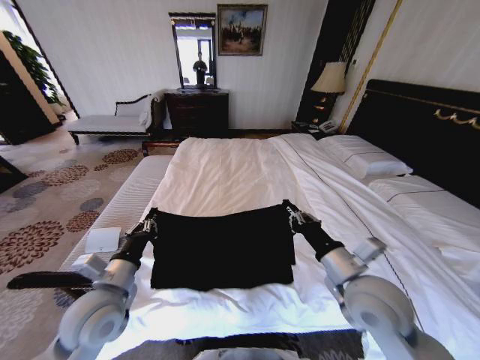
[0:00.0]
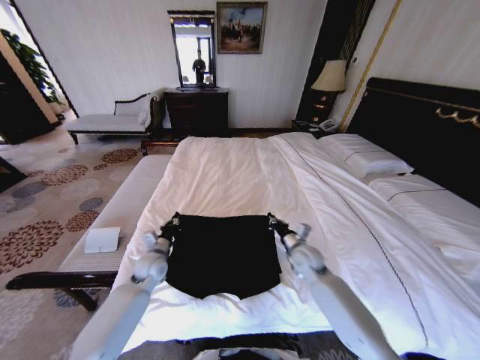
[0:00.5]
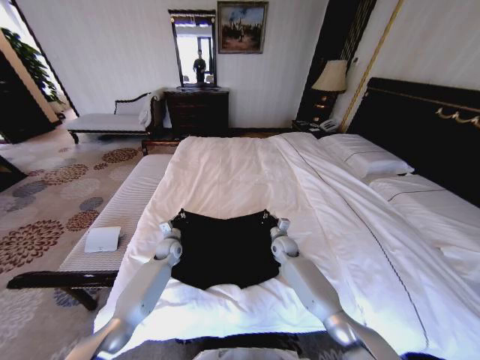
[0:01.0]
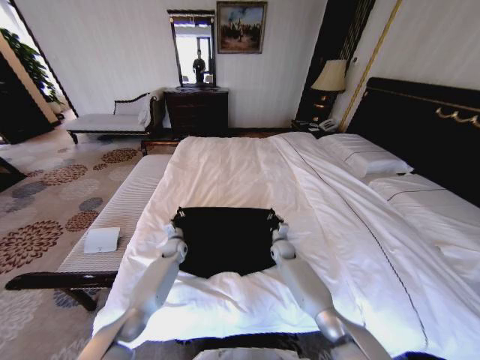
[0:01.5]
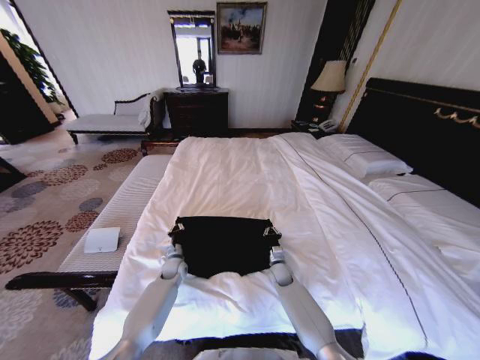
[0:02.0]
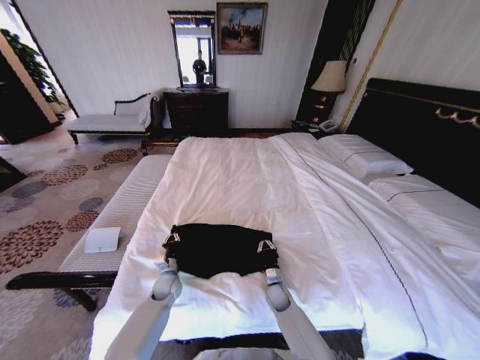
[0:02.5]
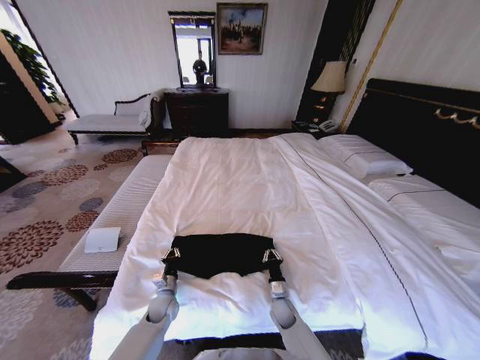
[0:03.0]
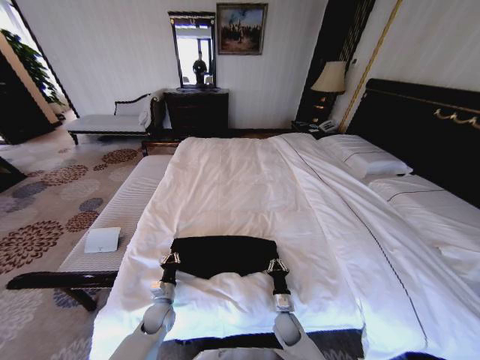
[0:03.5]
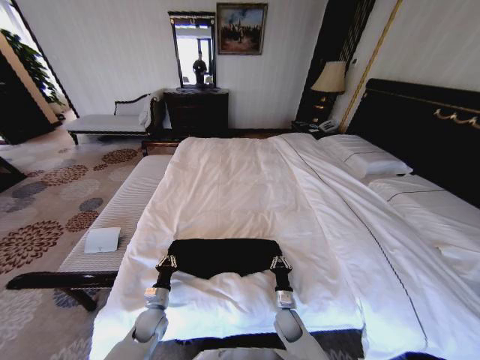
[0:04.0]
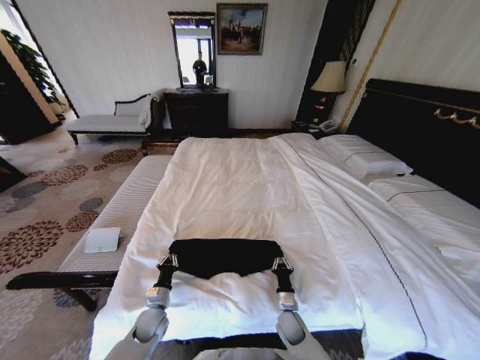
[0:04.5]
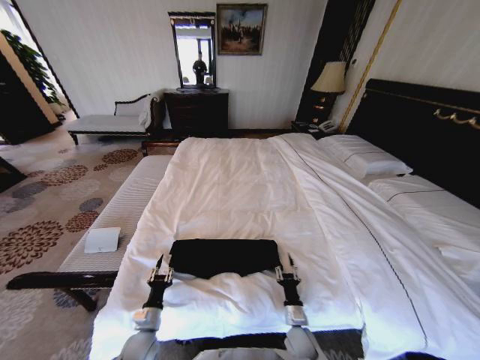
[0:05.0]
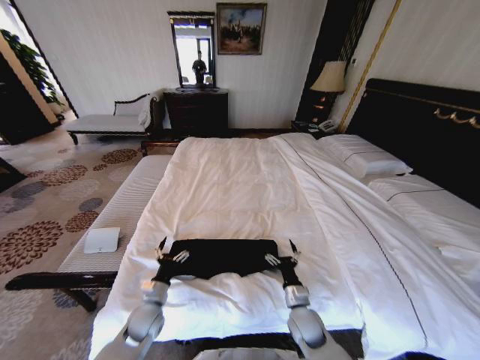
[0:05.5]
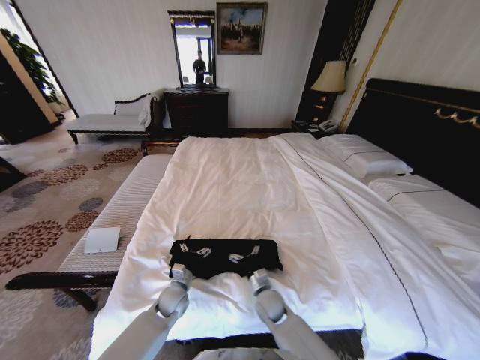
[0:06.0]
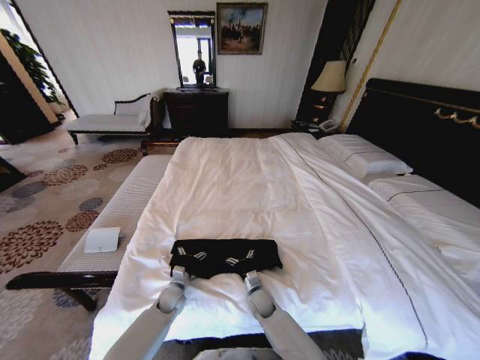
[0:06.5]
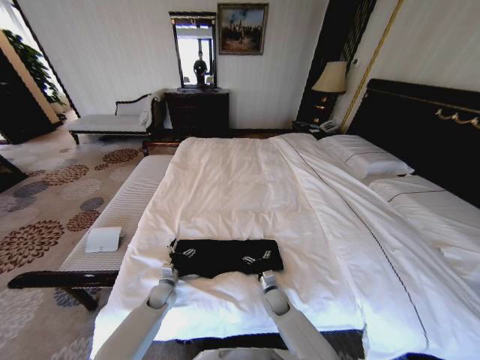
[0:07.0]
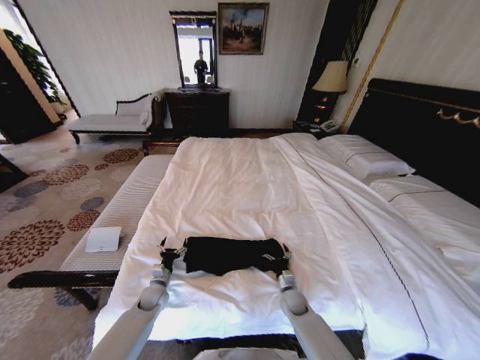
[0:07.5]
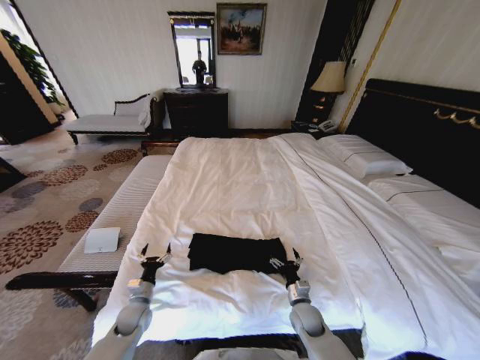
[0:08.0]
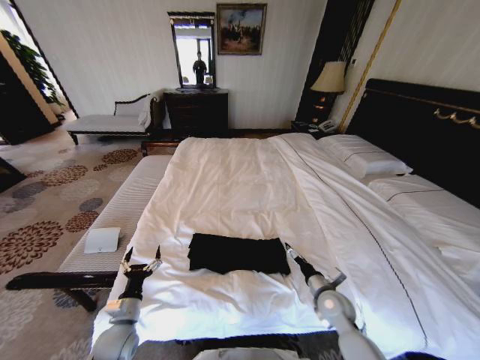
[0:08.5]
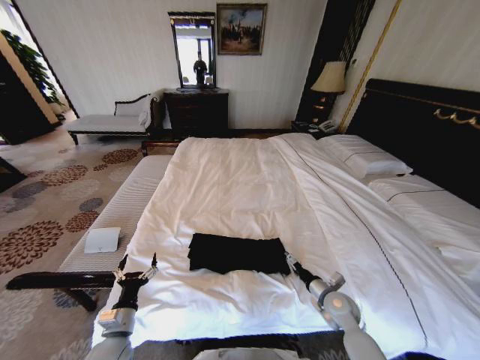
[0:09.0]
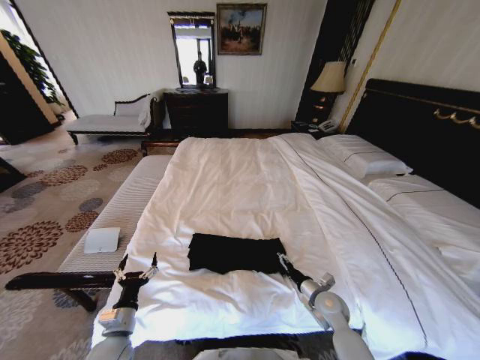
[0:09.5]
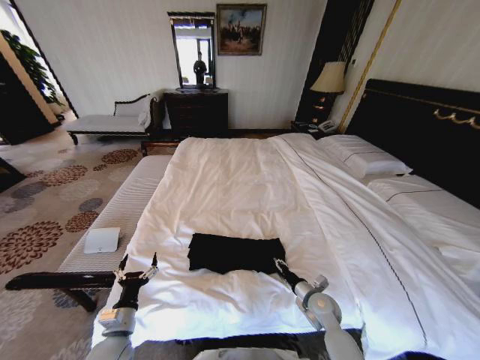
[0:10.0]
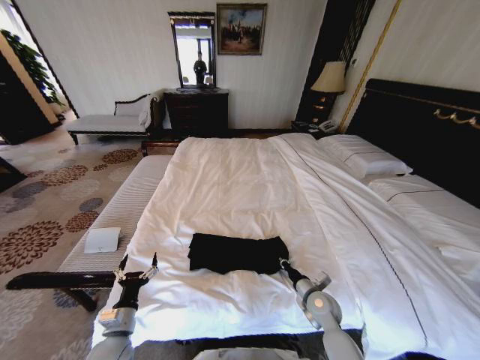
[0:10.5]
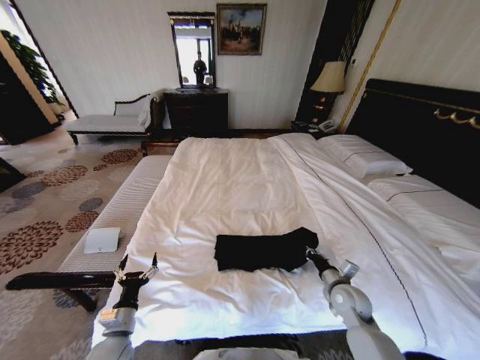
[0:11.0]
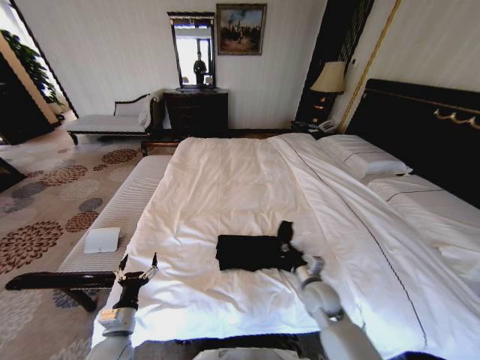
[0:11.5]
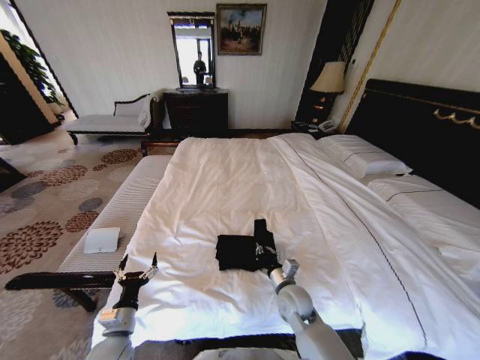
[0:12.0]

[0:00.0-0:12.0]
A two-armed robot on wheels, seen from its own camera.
Task of the whole recording: Fold the clothes on the bed.
0:00.0 to 0:02.0: Both grippers move downward and forward, about 35 cm.
0:02.0 to 0:04.0: The two grippers go about 15 cm backward.
0:04.0 to 0:06.0: The left gripper goes some 10 cm to the right and forward, and opens up; the right gripper travels upward and to the left by approximately 10 cm, and opens up.
0:06.0 to 0:08.0: The right gripper moves to the right, about 10 cm. Meanwhile the left gripper shifts approximately 10 cm to the left.
0:08.0 to 0:10.0: The left gripper moves backward and upward, some 10 cm; the right gripper moves to the right, roughly 5 cm, and closes its fingers.
0:10.0 to 0:12.0: The right gripper travels to the left and upward by roughly 15 cm, and closes up.

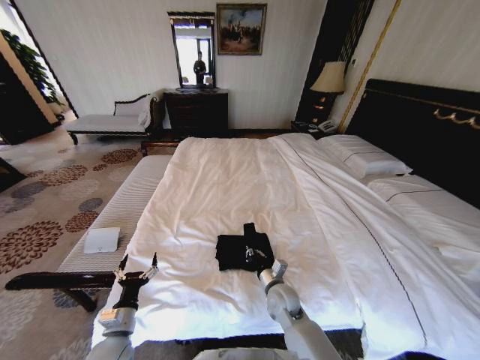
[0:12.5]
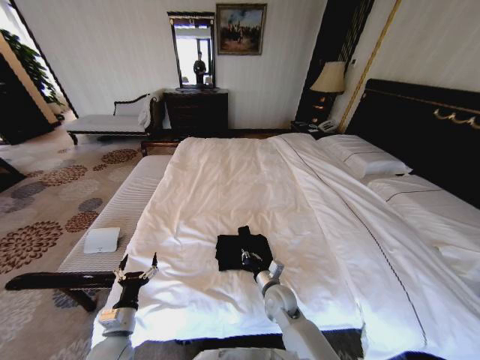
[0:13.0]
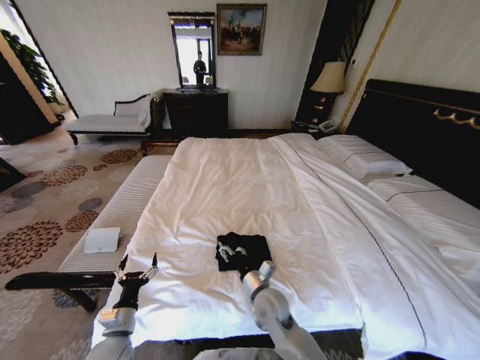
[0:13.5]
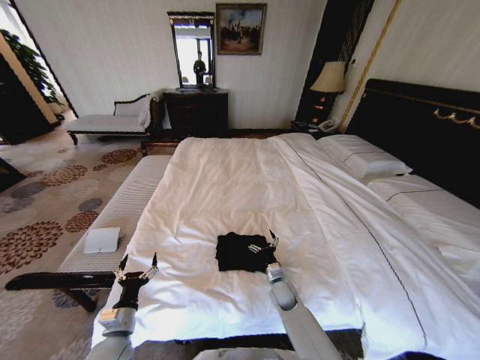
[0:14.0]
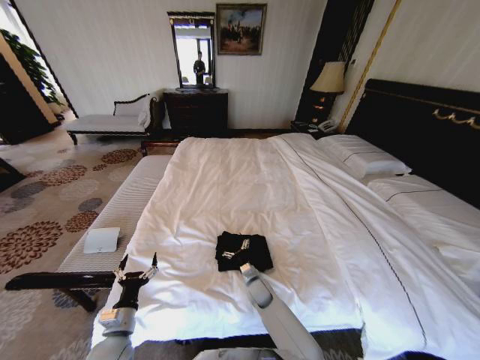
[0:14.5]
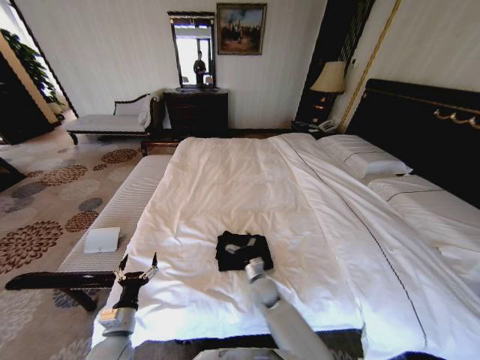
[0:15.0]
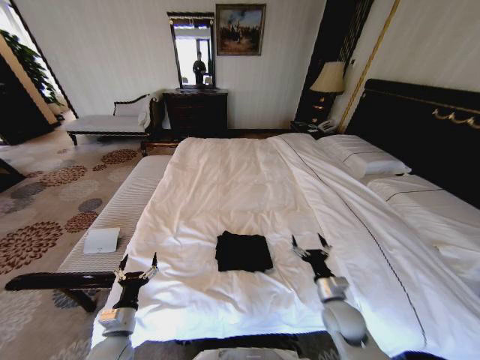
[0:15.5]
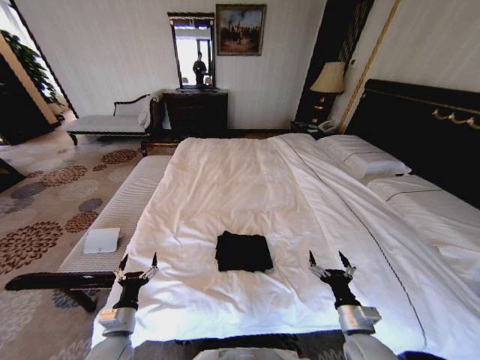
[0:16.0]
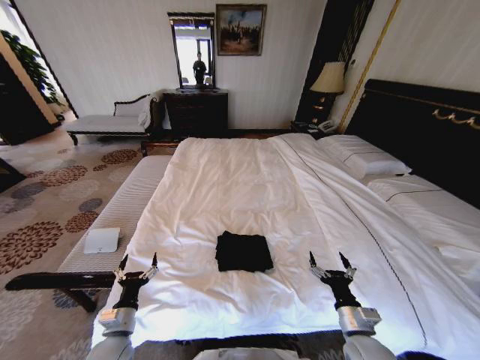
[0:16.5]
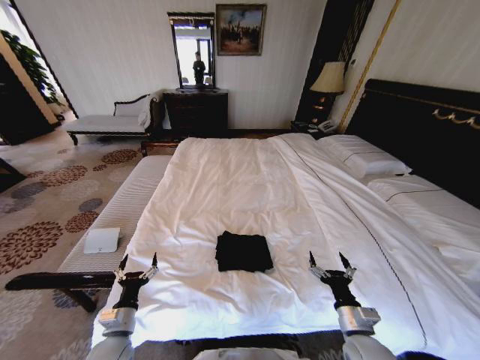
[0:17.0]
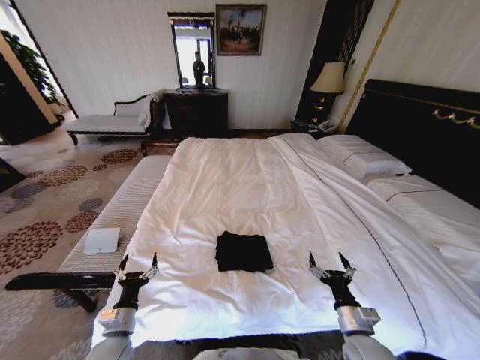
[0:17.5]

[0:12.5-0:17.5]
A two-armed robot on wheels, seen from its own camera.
Task of the whole recording: Fold the clothes on the bed.
0:12.5 to 0:15.0: The right gripper swings up and down, approximately 15 cm each way, with 2 reversals, and opens.
0:15.0 to 0:17.5: The right gripper travels to the right and backward by about 25 cm.
